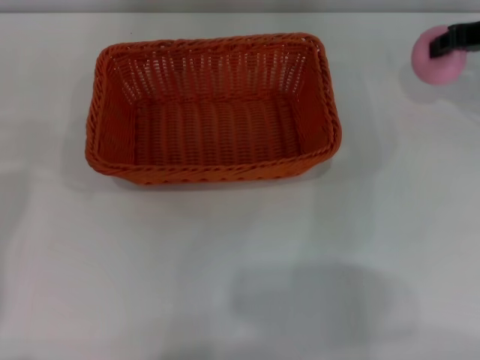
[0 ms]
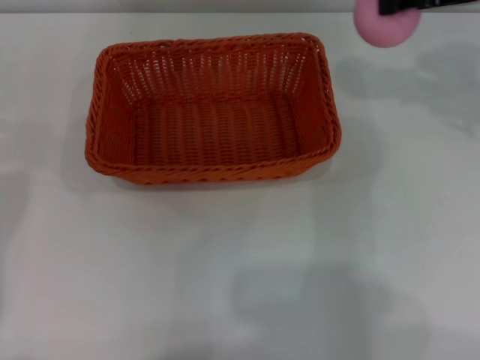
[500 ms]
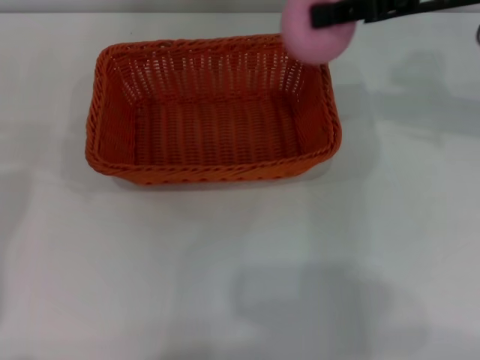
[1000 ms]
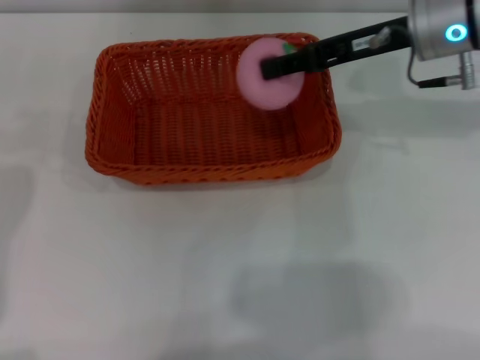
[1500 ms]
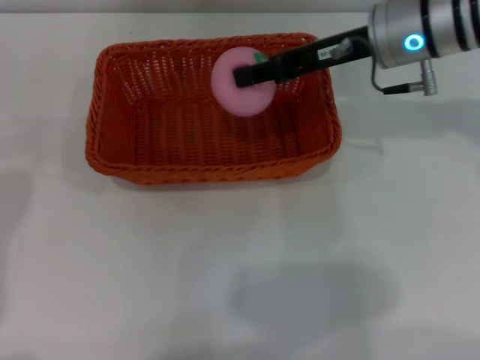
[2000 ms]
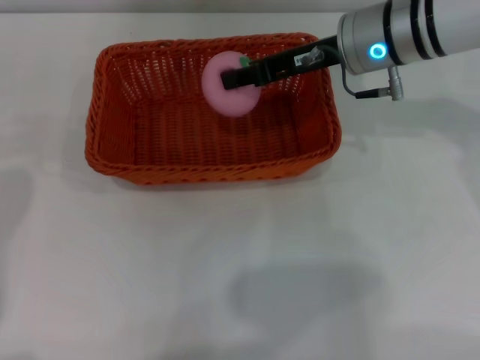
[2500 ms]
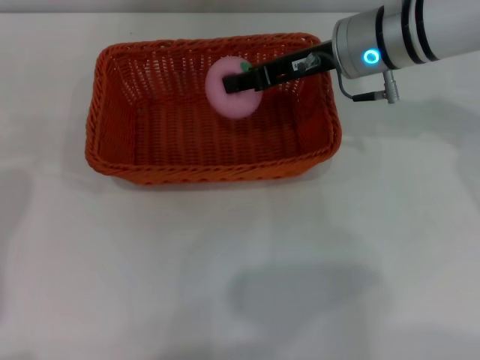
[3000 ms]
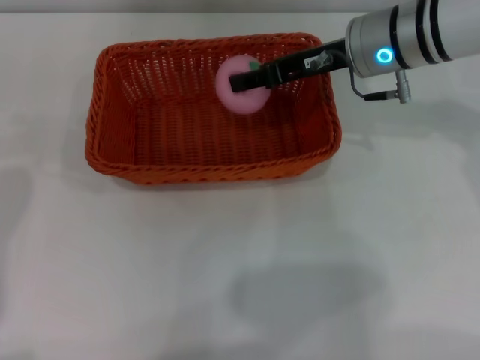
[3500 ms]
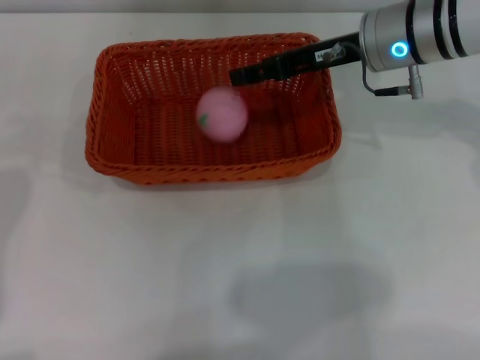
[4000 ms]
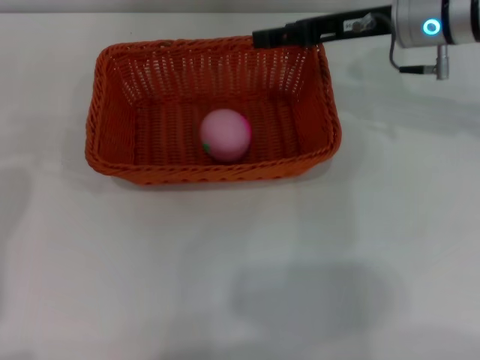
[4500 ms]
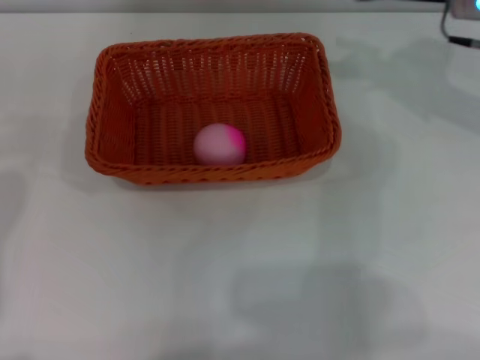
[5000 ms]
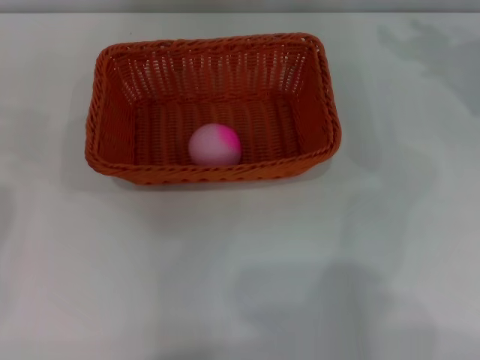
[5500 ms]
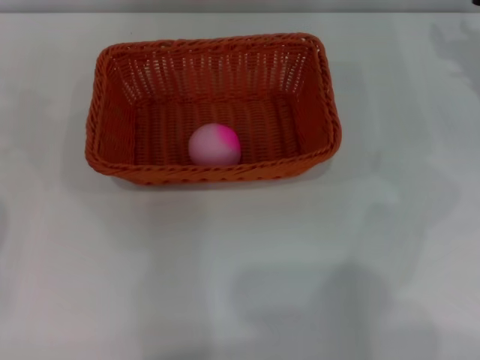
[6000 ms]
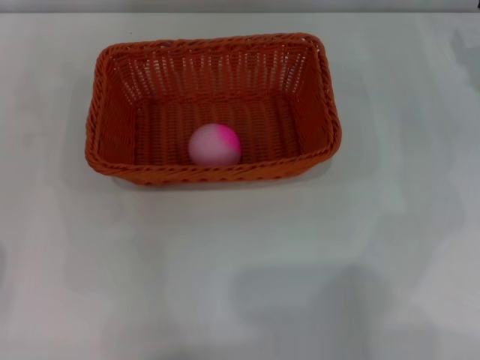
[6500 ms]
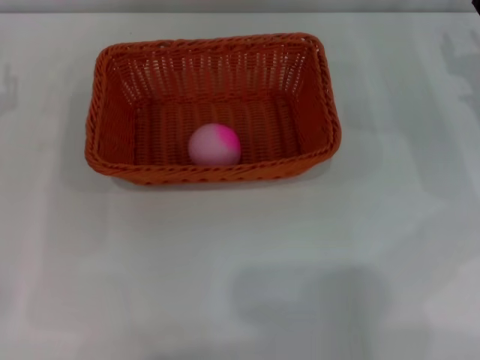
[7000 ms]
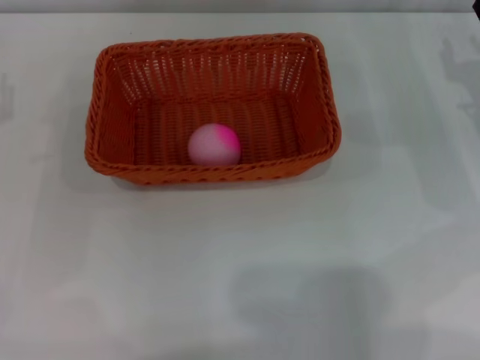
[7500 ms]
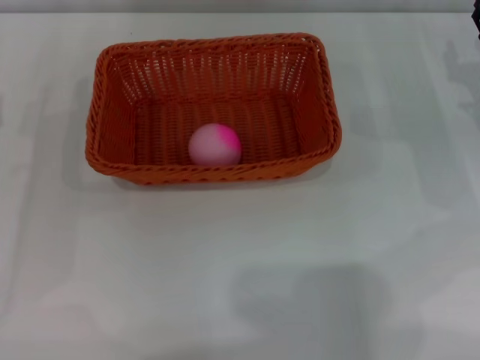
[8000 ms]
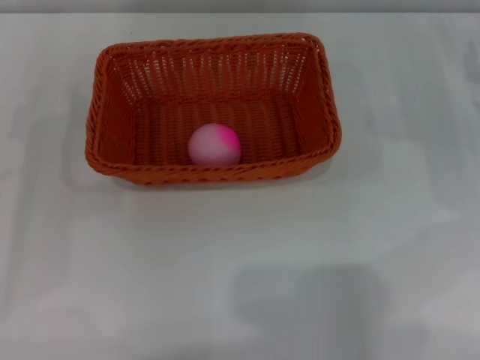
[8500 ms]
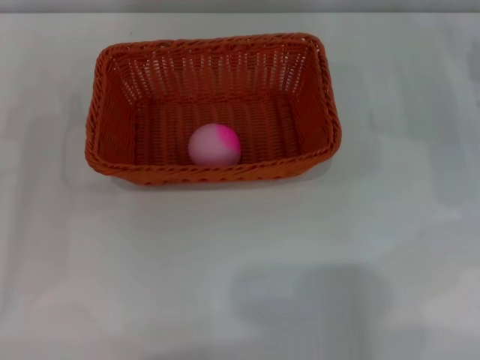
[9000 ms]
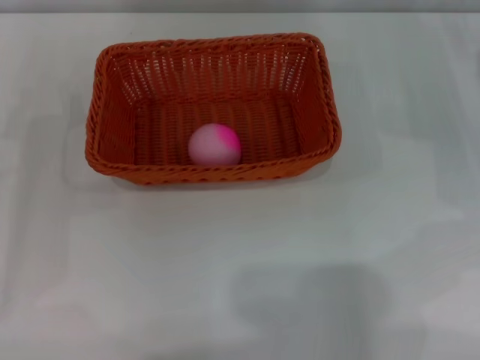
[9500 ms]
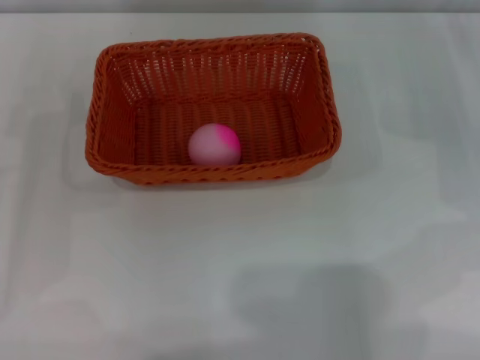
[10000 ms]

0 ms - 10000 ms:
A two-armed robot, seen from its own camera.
Step, 500 ms - 4000 ms: Place the peach into the basket with the left gripper.
0 ms - 2000 ms: The right gripper is displaced to the left by approximately 15 cm.
2000 ms - 4000 ms: The right gripper opens its fingers.
4000 ms - 6000 ms: The right gripper shifts approximately 15 cm to the right; the left gripper changes place by about 5 cm.
